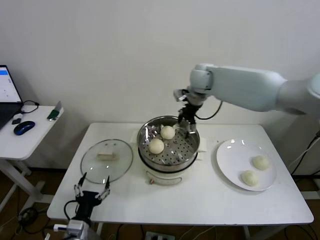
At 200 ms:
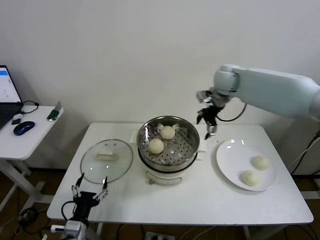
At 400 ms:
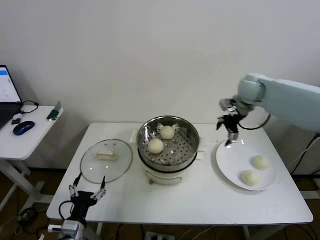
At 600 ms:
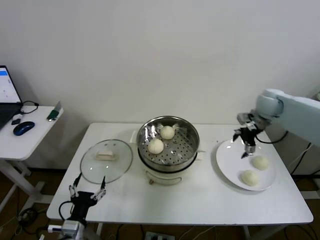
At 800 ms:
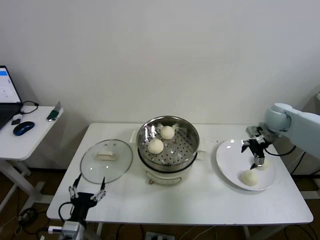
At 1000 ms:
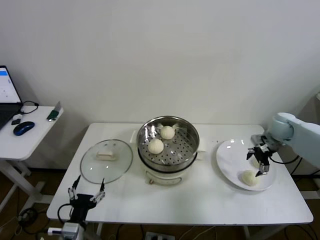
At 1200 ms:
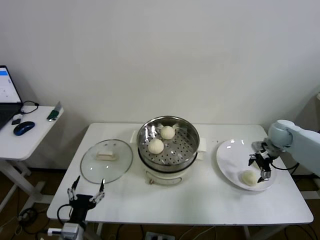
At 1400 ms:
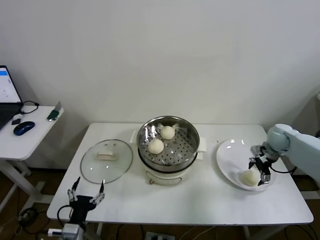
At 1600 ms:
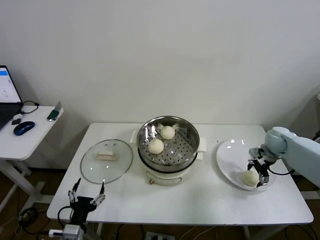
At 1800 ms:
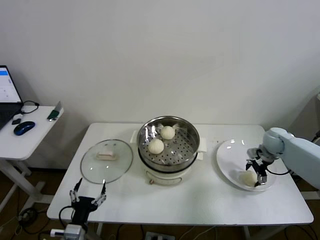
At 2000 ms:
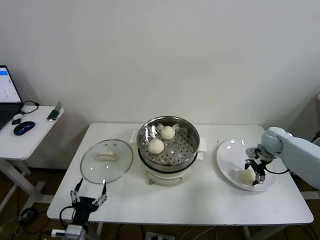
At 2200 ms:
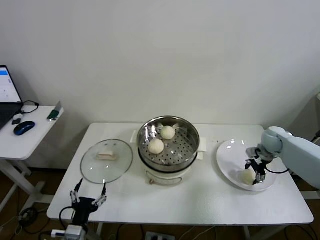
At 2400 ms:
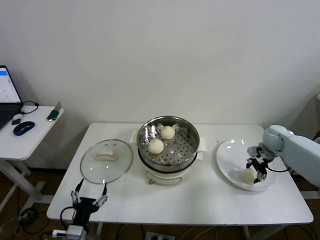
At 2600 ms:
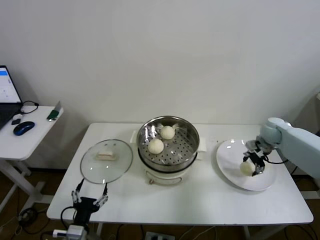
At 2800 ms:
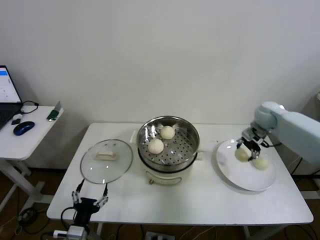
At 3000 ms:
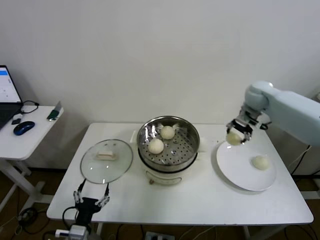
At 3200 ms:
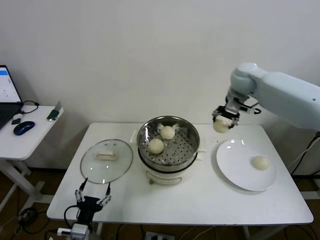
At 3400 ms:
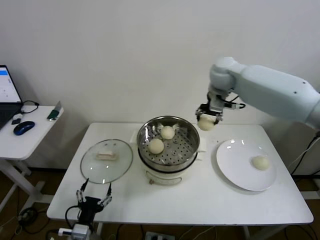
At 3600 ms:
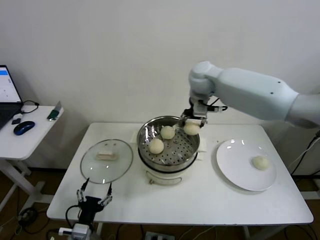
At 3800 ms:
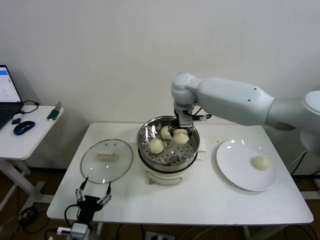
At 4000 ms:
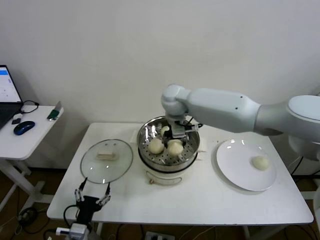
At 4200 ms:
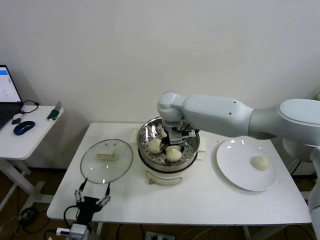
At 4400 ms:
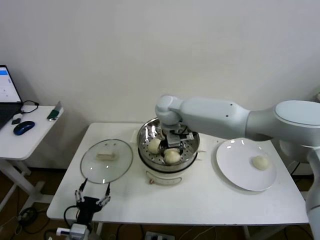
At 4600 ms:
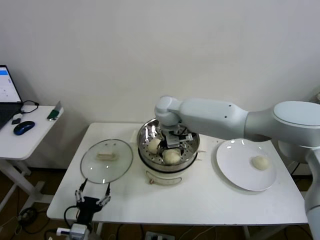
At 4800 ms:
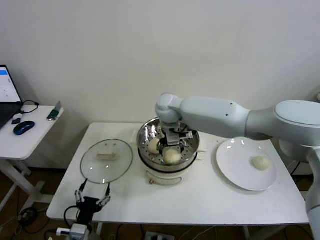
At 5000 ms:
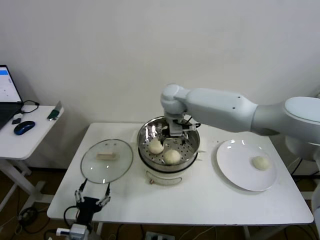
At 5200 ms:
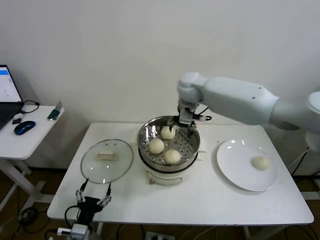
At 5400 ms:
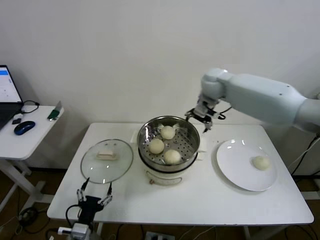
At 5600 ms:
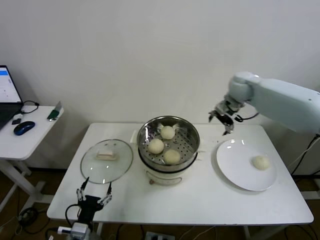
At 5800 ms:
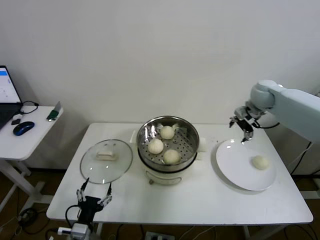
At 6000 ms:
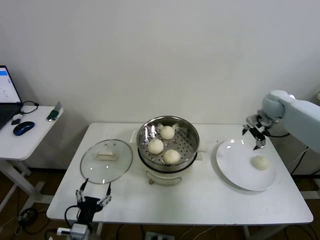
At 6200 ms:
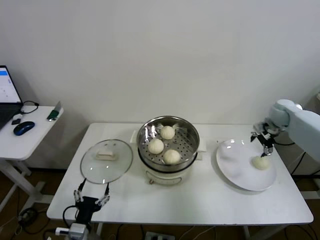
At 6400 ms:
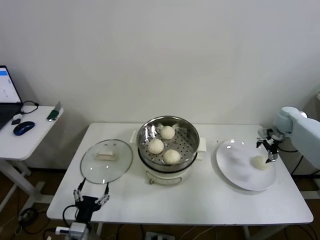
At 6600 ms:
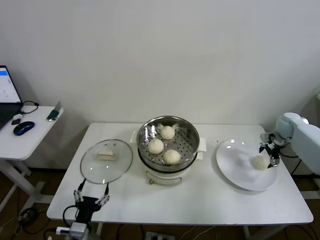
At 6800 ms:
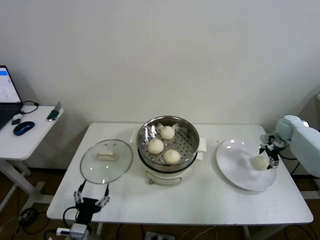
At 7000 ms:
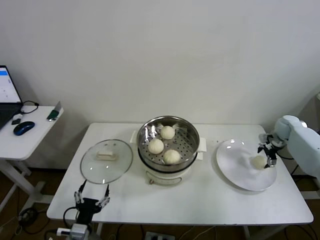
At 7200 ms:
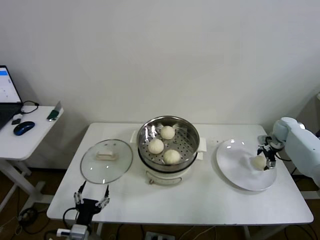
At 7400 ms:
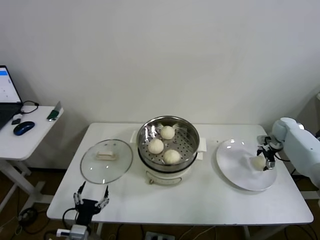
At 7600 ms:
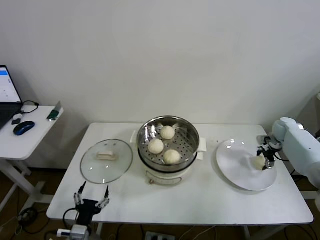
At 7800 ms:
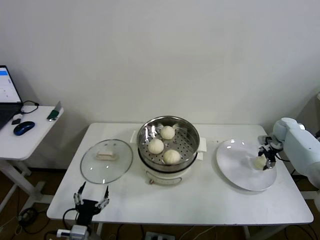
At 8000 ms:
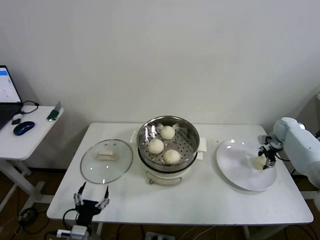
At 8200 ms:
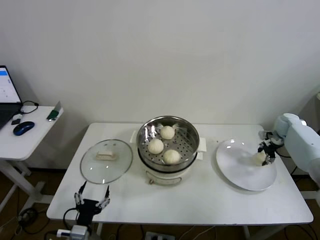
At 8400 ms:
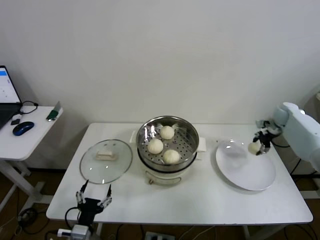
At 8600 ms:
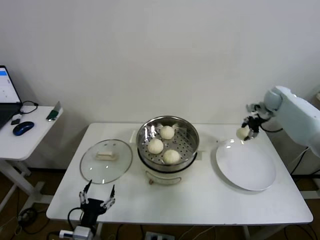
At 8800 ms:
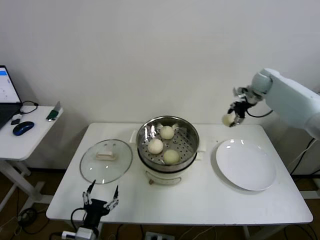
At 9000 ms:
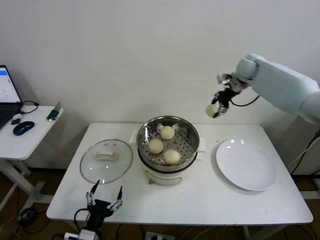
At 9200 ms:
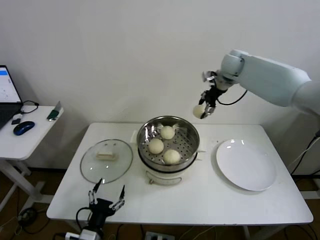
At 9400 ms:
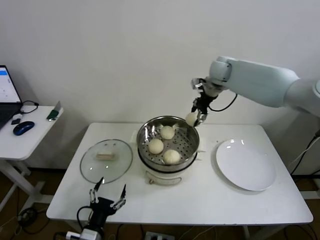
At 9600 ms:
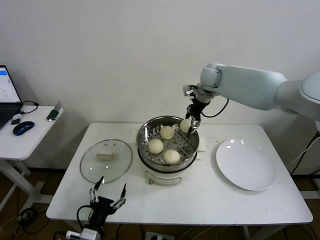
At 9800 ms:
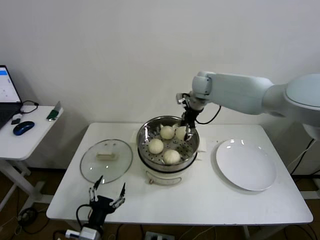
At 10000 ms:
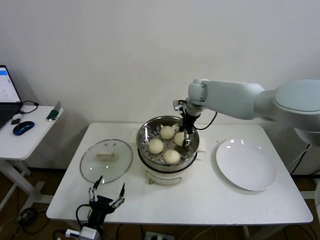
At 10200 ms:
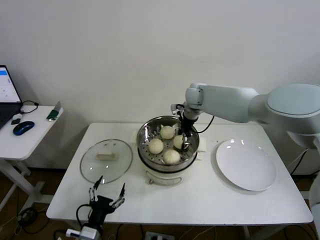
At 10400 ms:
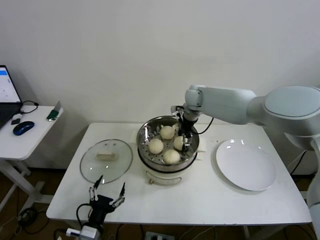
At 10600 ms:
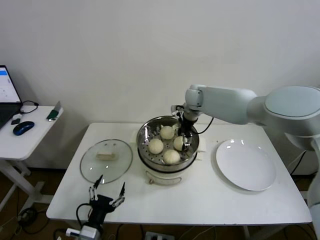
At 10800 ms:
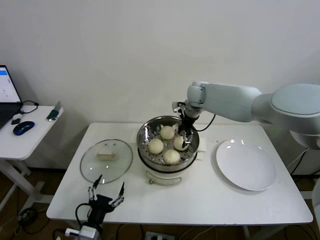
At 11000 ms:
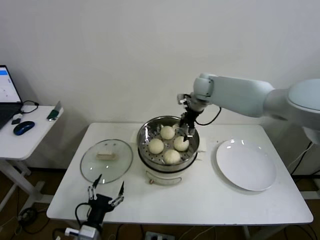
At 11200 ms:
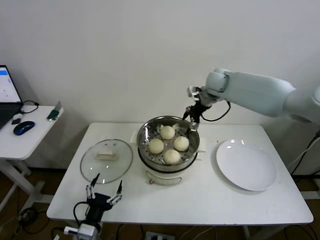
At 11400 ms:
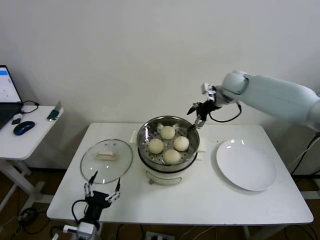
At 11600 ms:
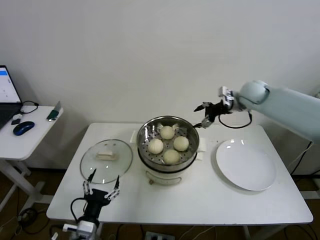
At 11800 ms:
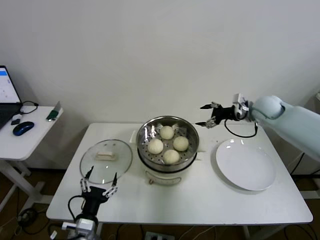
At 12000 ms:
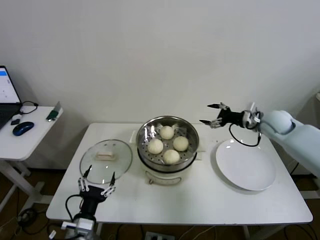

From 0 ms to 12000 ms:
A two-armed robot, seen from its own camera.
Step, from 0 ms to 2200 ms: Grasp the baozi in the plate with right gripper.
Step, from 2400 ms to 4800 ms: Place the baozi on the steamer with right gripper.
Step, from 5000 ms to 7800 ms: Grasp the baozi in the plate with right gripper.
Step, from 8000 ms to 10800 ms: Place the baozi on the steamer with right gripper.
From 0 ms to 1600 ms: The right gripper shifts approximately 35 cm to the right and downward.
From 1600 ms to 3000 ms: The right gripper shifts about 25 cm upward and to the left, and closes up.
From 3000 ms to 4400 ms: The right gripper heads to the left, covering about 30 cm, and opens its fingers.
From 4400 ms to 6000 ms: The right gripper goes roughly 40 cm to the right.
From 6000 ms to 7600 ms: The right gripper goes some 15 cm downward and to the right, and closes up.
From 7600 ms to 9000 ms: The right gripper shifts about 35 cm upward and to the left, and closes up.
From 9000 ms to 10400 ms: The right gripper moves to the left and downward, some 20 cm, and opens.
From 10400 ms to 12000 ms: The right gripper heads to the right and backward, covering some 30 cm.

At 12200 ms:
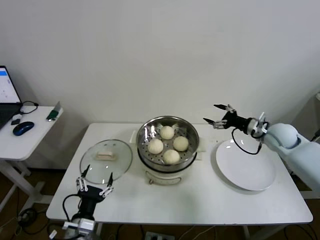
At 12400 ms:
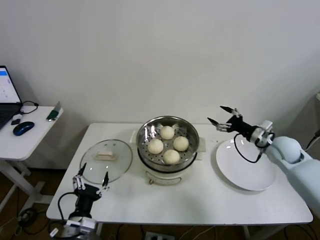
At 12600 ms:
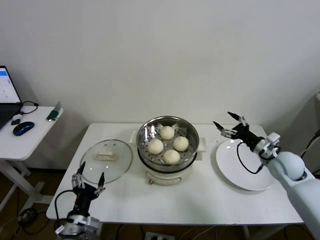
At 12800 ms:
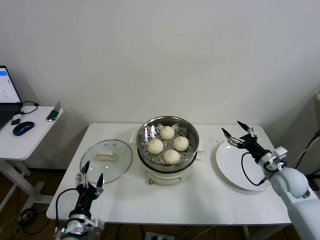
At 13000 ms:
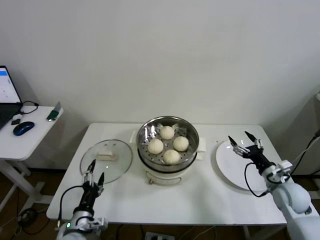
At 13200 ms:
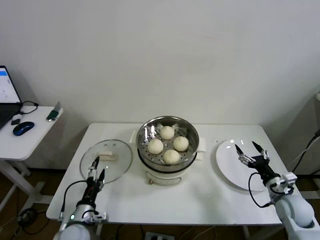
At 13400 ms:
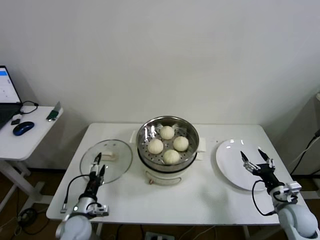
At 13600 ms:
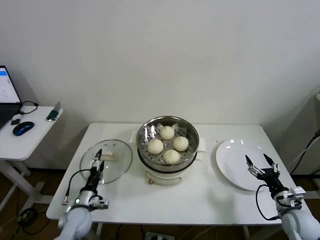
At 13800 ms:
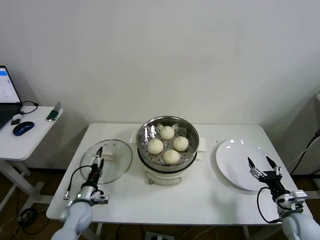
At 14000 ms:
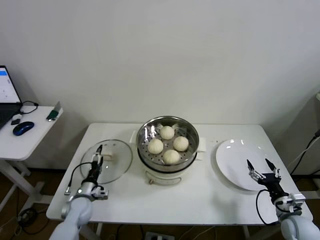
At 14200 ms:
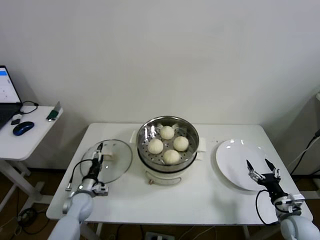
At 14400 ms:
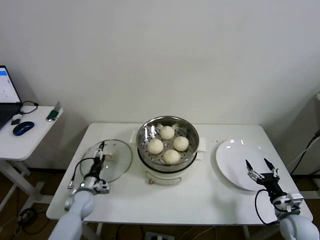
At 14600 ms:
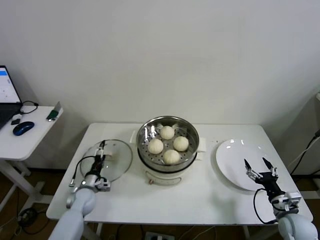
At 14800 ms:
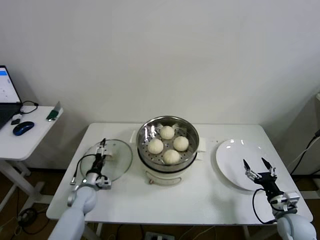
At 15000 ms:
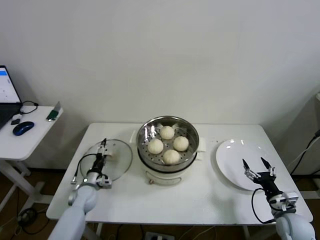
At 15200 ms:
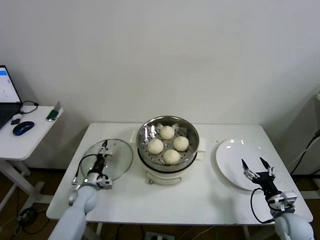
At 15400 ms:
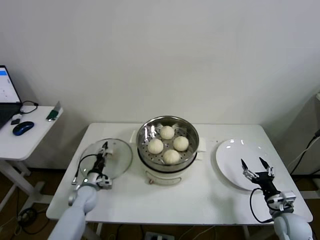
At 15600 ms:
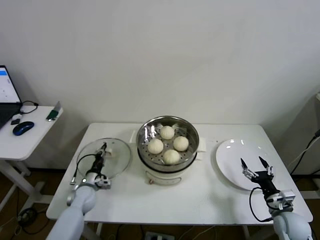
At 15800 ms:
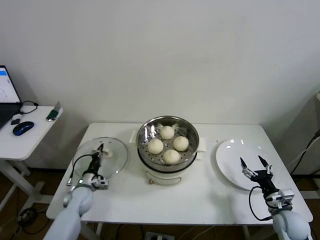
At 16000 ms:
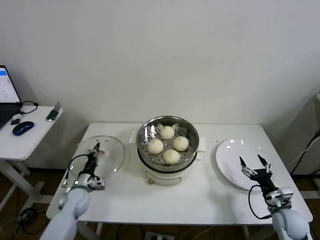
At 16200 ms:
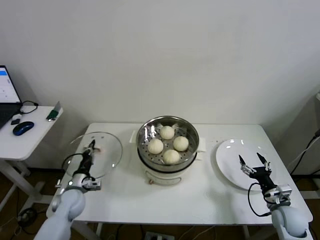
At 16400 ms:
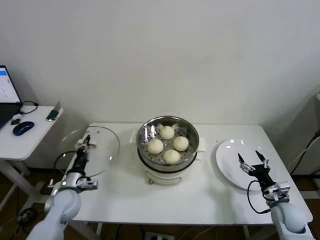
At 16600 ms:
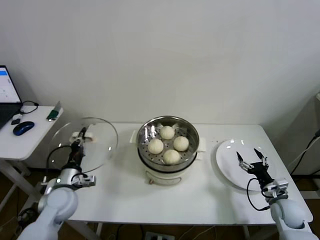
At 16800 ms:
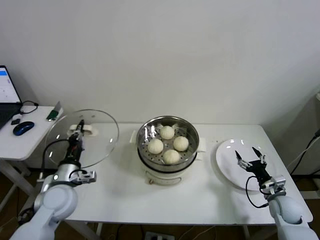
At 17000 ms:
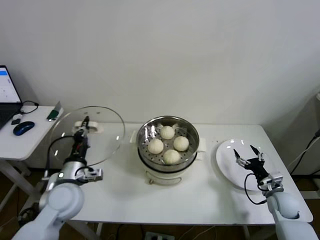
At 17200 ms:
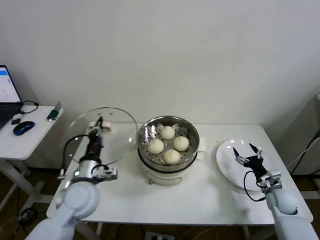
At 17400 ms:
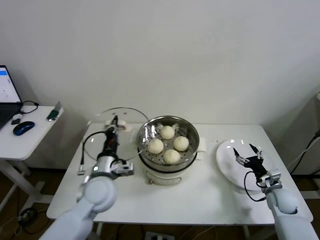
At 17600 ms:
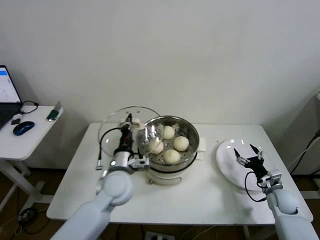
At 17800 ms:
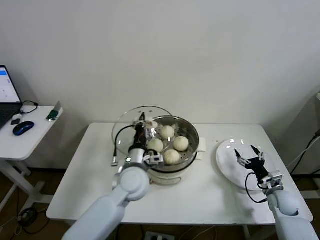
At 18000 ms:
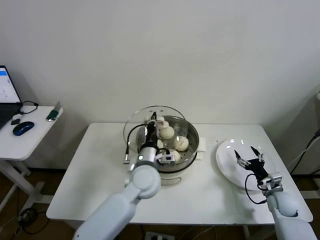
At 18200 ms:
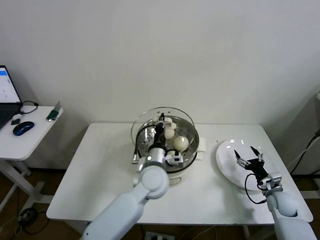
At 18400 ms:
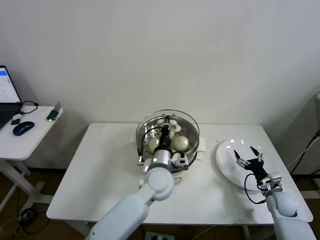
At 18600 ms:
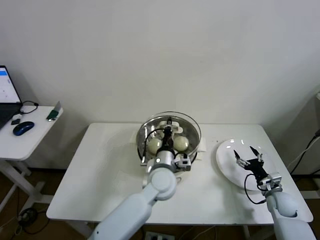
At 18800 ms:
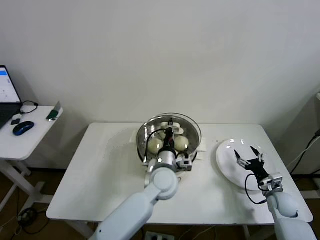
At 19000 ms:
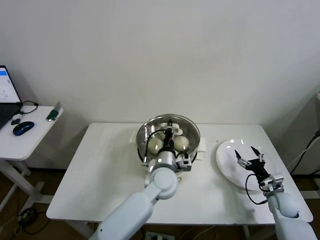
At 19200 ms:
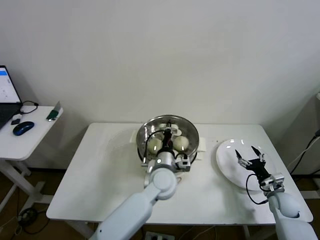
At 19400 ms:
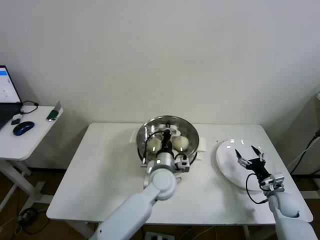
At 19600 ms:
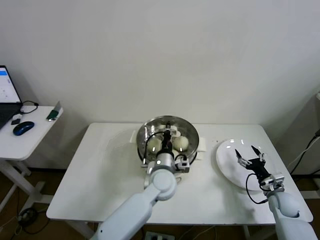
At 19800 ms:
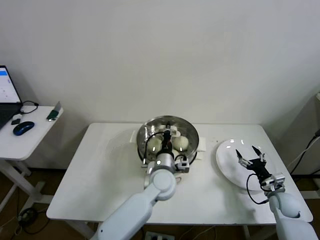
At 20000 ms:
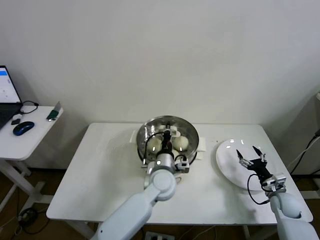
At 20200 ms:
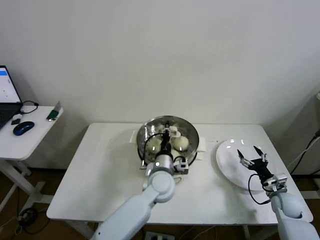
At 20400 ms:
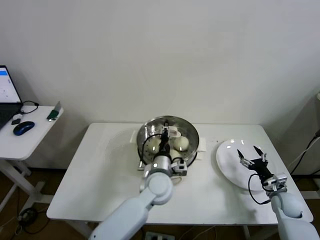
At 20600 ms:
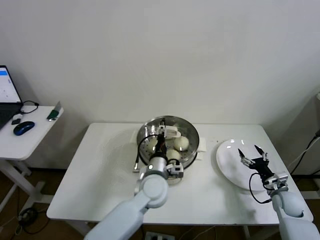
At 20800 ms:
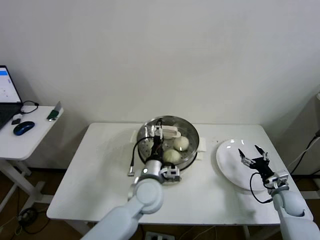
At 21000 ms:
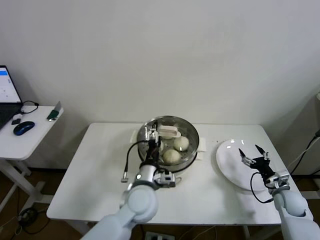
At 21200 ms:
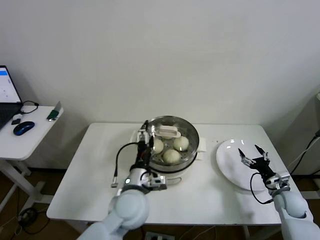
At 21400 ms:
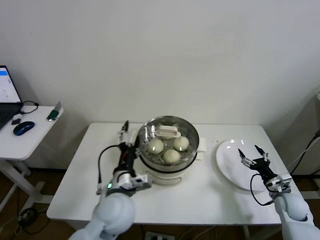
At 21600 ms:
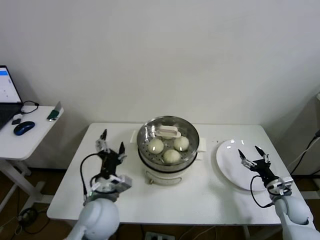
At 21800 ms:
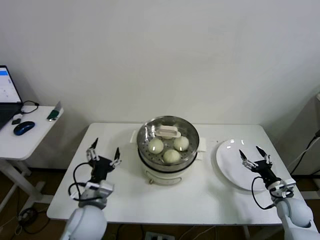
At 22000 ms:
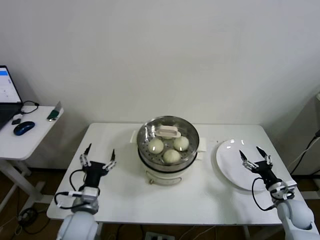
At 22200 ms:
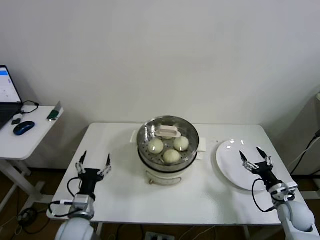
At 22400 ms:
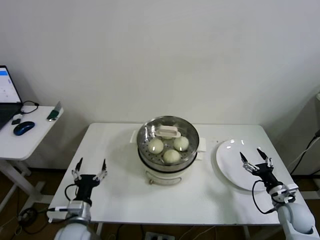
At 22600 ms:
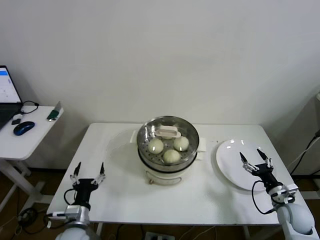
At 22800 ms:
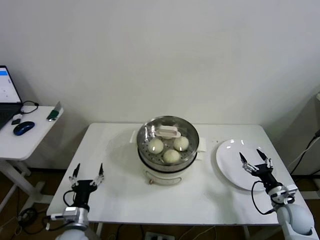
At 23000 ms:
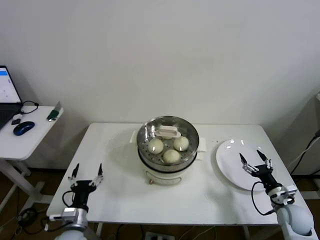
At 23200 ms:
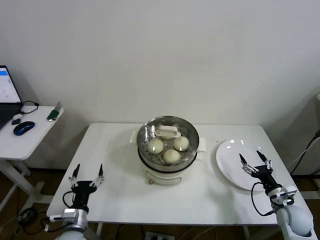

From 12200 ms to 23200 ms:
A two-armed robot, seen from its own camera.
Step, from 12200 ms to 15600 ms: Grasp the pot lid with left gripper.
Step, from 15800 ms to 21000 ms: Place the pot lid on the steamer with left gripper.
From 12200 ms to 13800 ms: The left gripper moves forward, downward and to the left, roughly 20 cm. The right gripper heads backward and downward, covering some 30 cm.
From 13800 ms to 15400 ms: The left gripper is displaced forward by approximately 5 cm, and closes up.
From 15400 ms to 17000 ms: The left gripper travels upward and backward by about 25 cm, and closes. Meanwhile the right gripper goes about 5 cm forward.
From 17000 ms to 18400 ms: The left gripper is displaced to the right by roughly 25 cm.
From 18400 ms to 20000 ms: There are only small adjustments of the grippers.
From 20000 ms to 21600 ms: The left gripper moves to the left and backward, about 20 cm, and opens.
From 21600 ms to 23200 ms: The left gripper shifts approximately 20 cm downward and to the left.
